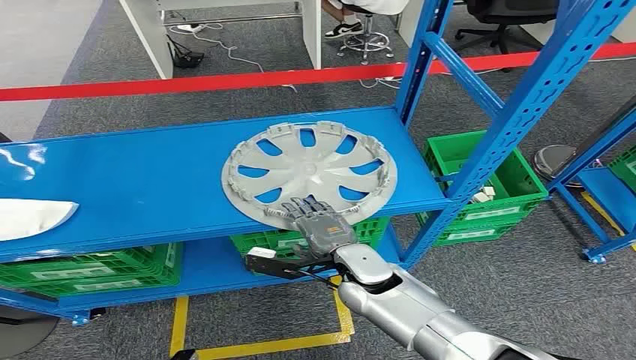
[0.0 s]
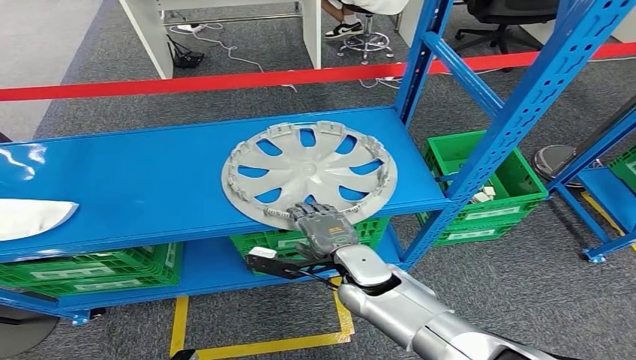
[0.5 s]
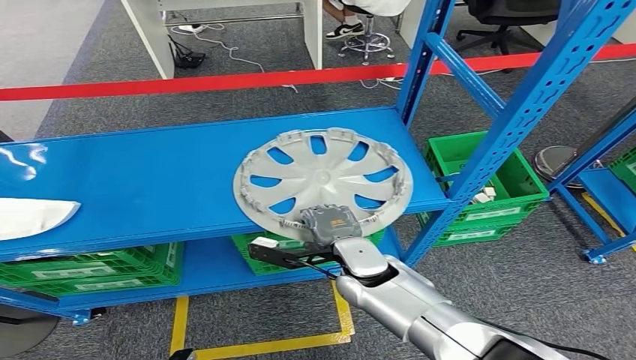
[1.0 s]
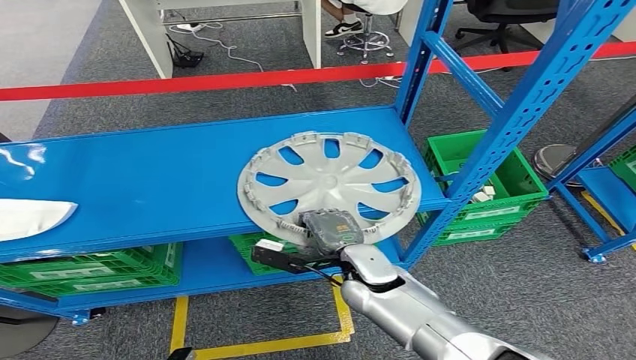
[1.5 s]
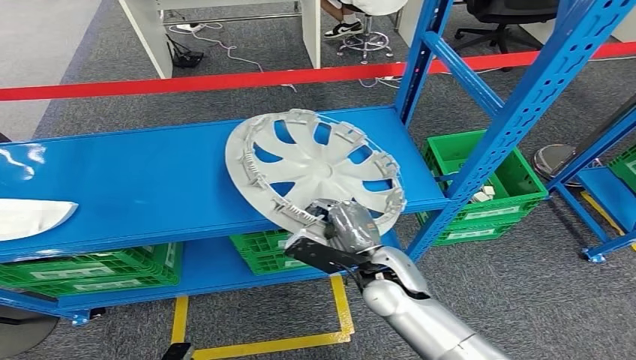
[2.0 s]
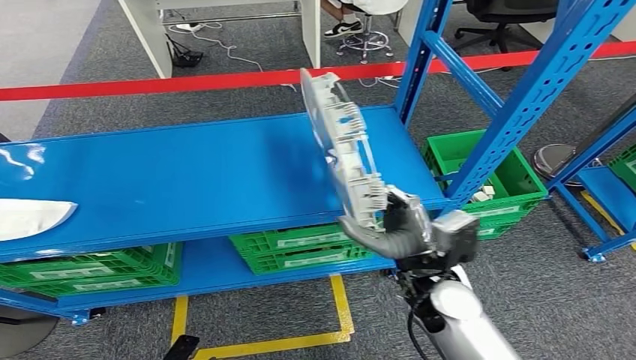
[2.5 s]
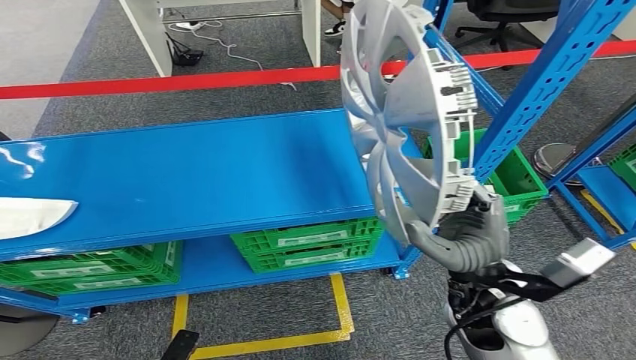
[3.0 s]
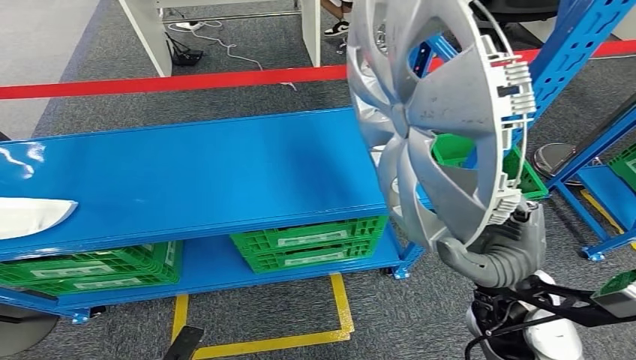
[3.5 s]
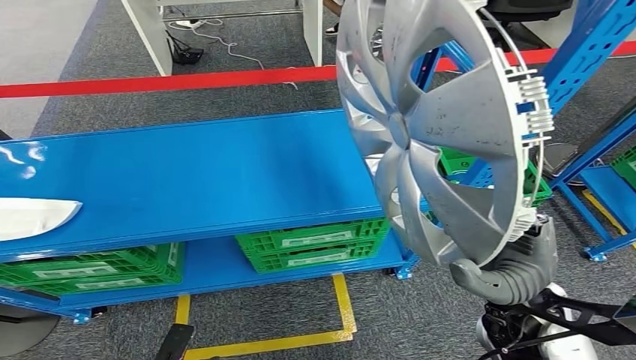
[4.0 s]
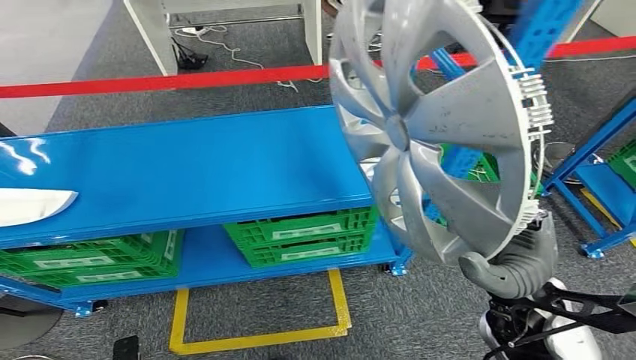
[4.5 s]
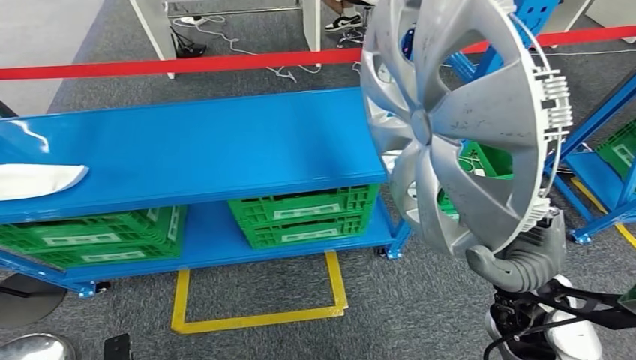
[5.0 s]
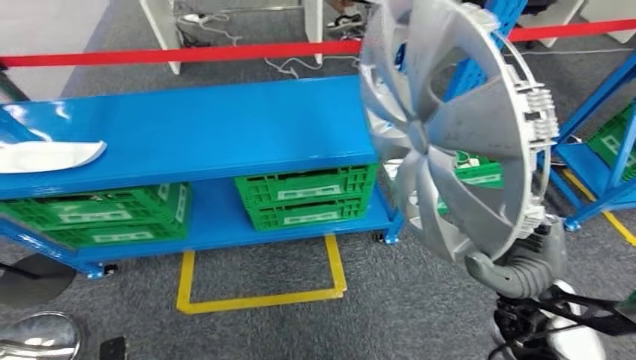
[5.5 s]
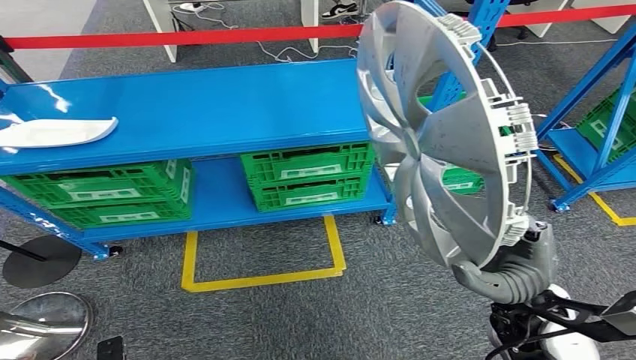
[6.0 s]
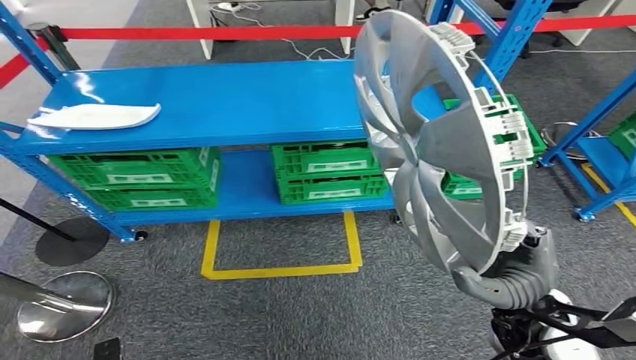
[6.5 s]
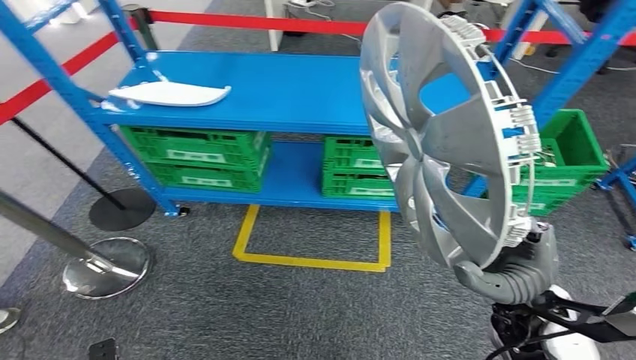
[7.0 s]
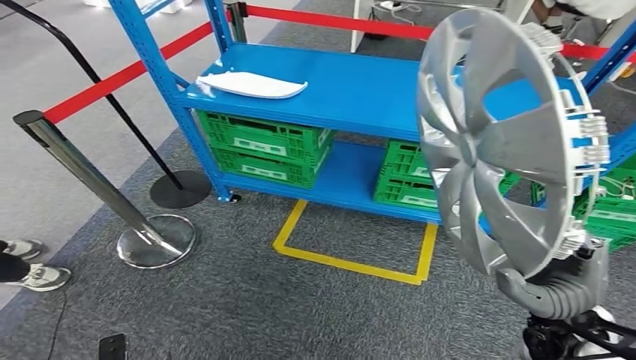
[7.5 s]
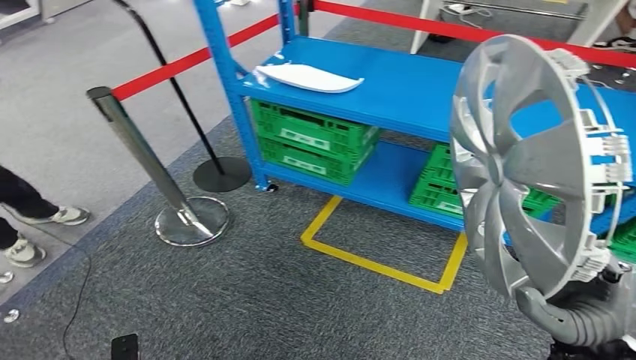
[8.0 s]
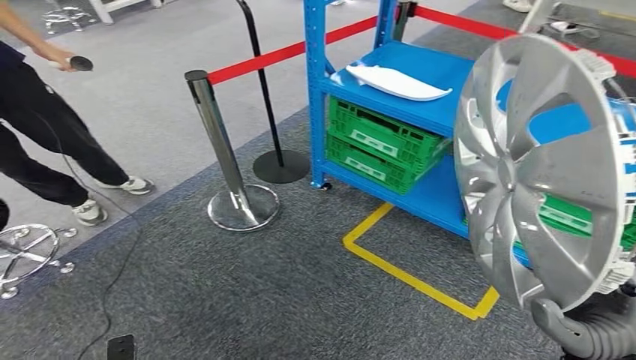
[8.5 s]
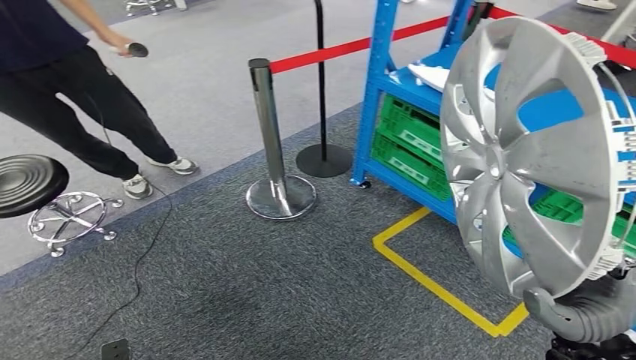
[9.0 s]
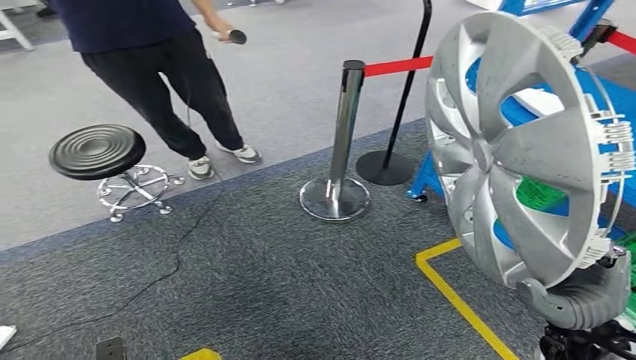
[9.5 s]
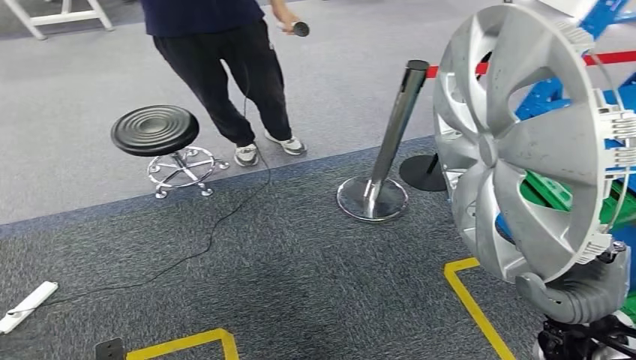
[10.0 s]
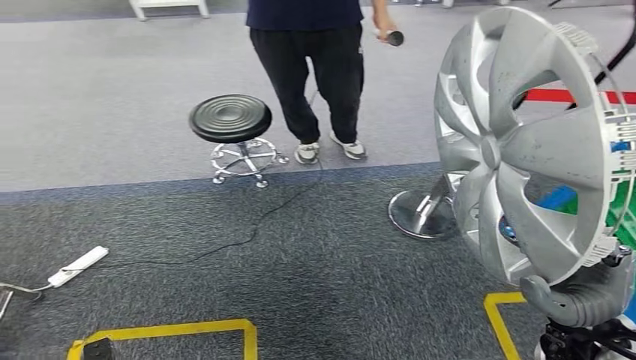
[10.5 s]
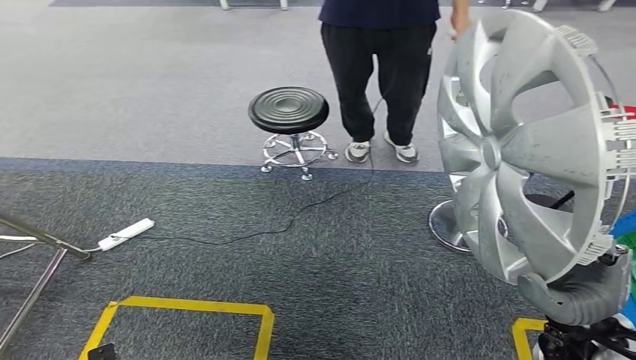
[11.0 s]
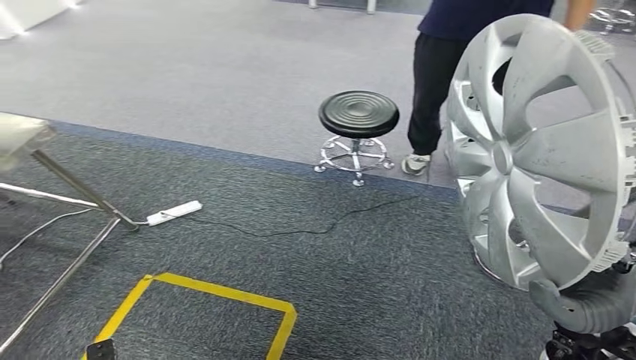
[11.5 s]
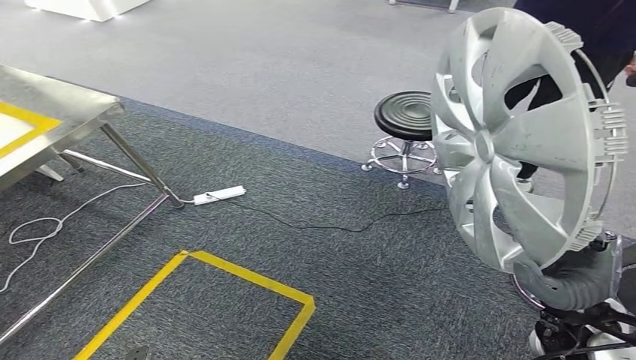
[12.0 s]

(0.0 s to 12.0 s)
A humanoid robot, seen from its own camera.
Step, 0.0 s - 5.0 s: Pick up the small parts from the shelf.

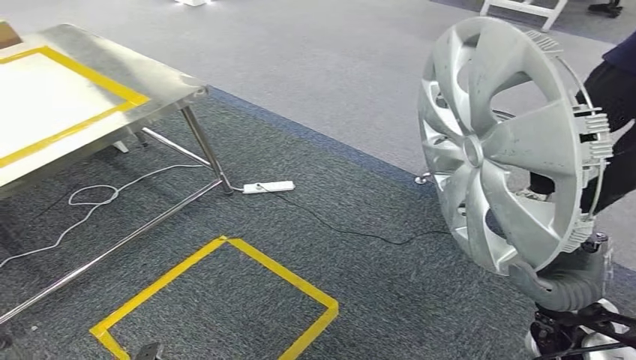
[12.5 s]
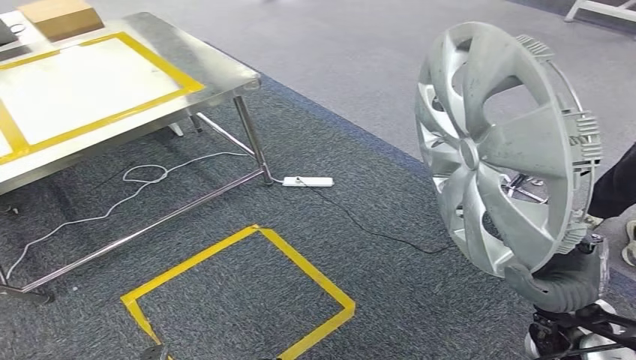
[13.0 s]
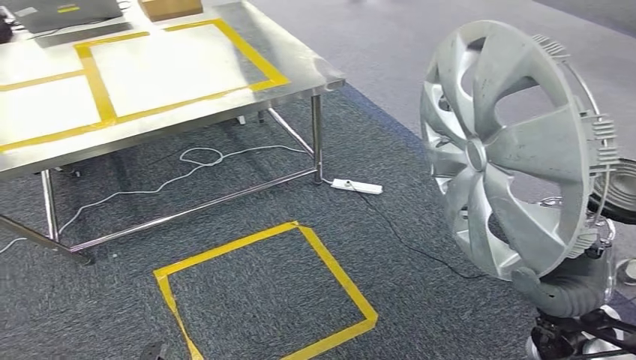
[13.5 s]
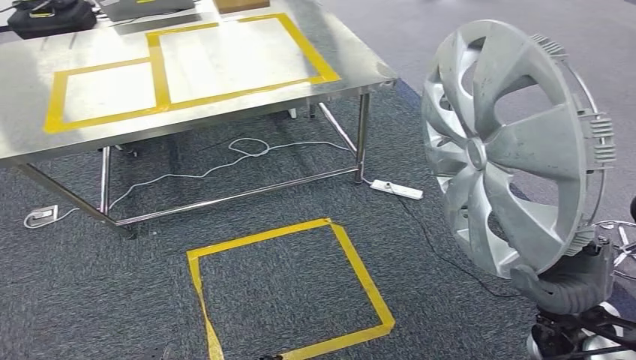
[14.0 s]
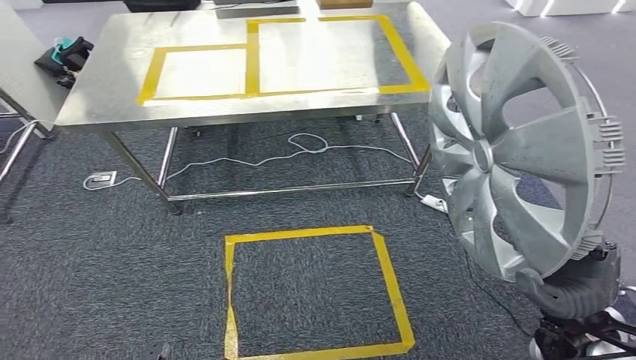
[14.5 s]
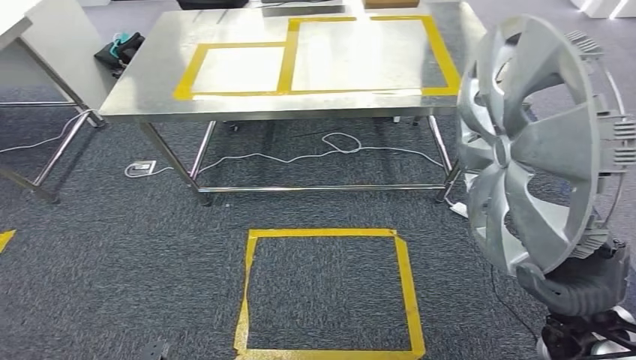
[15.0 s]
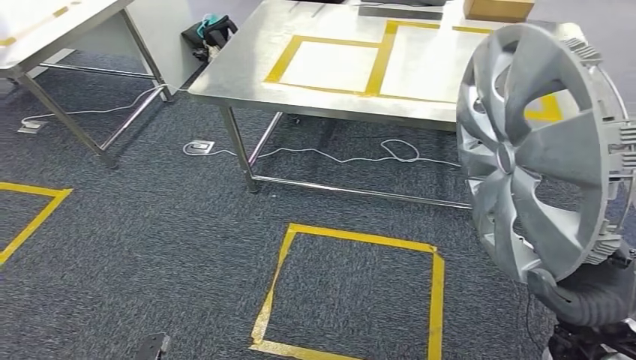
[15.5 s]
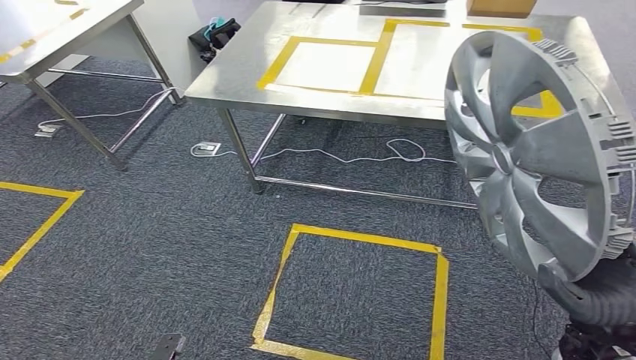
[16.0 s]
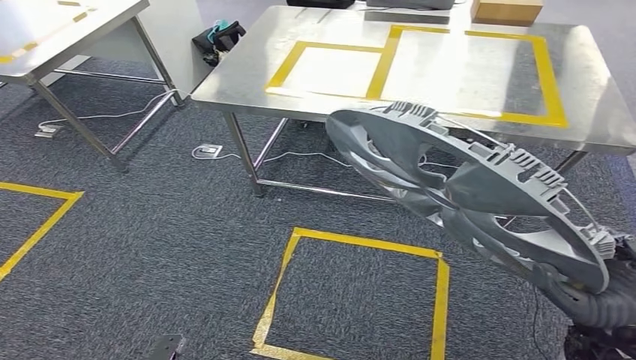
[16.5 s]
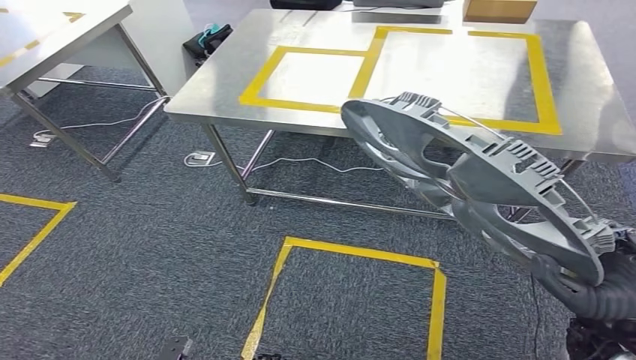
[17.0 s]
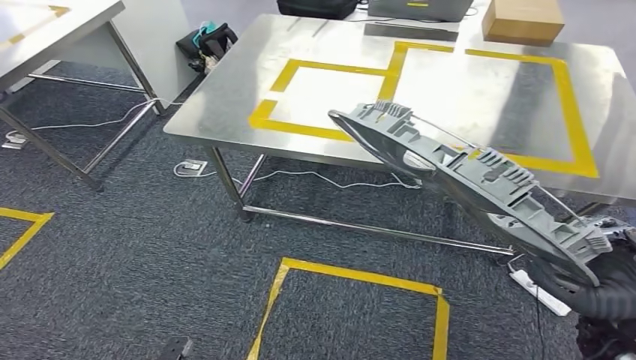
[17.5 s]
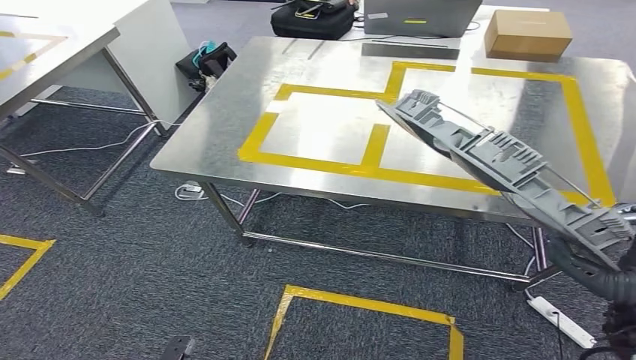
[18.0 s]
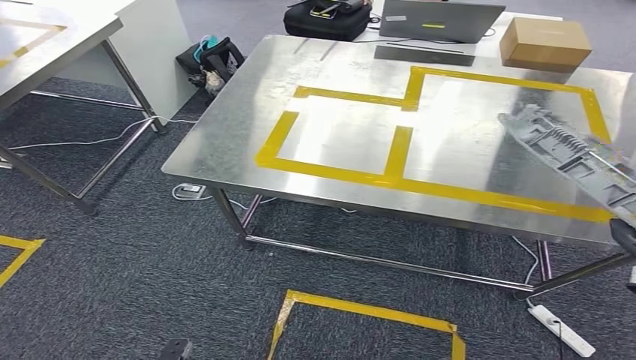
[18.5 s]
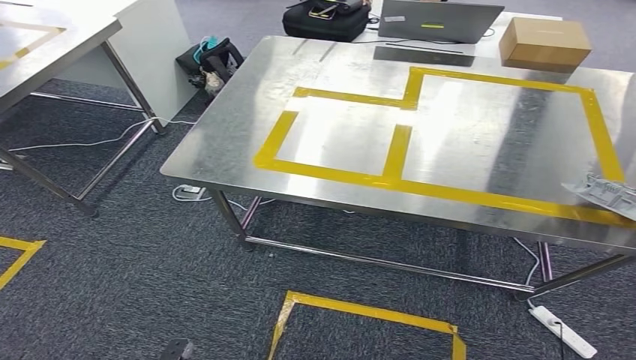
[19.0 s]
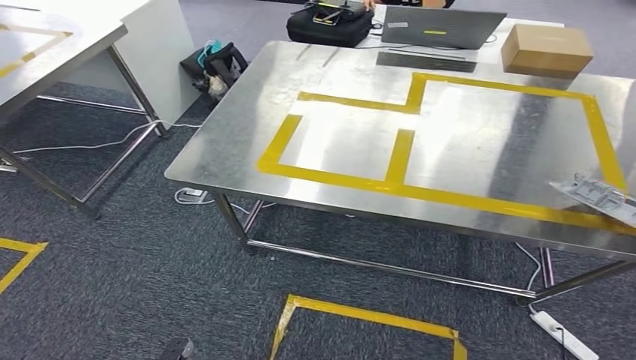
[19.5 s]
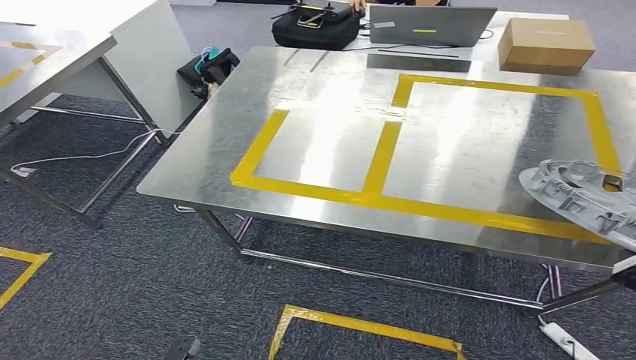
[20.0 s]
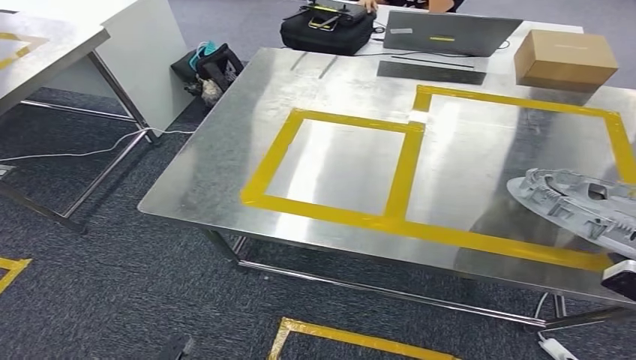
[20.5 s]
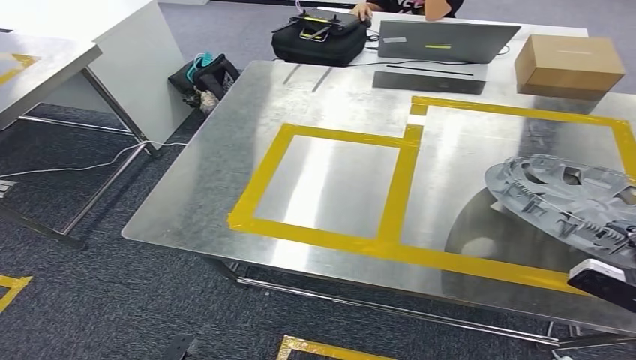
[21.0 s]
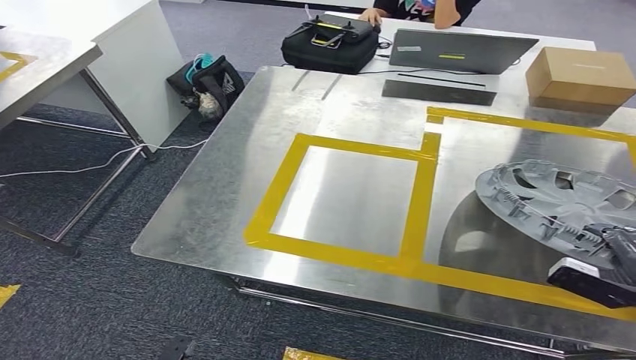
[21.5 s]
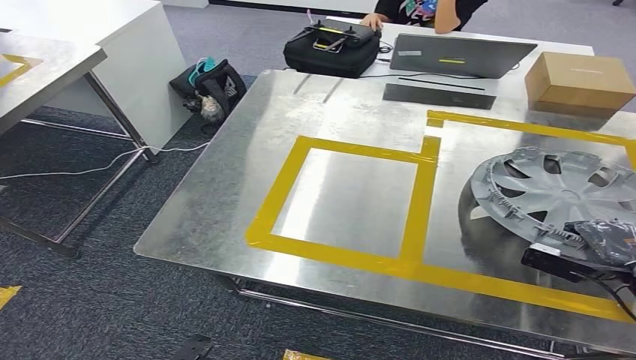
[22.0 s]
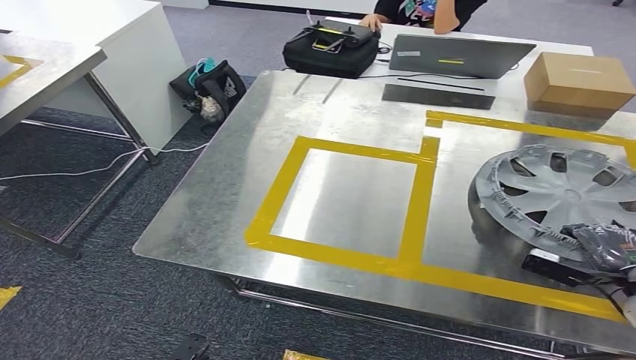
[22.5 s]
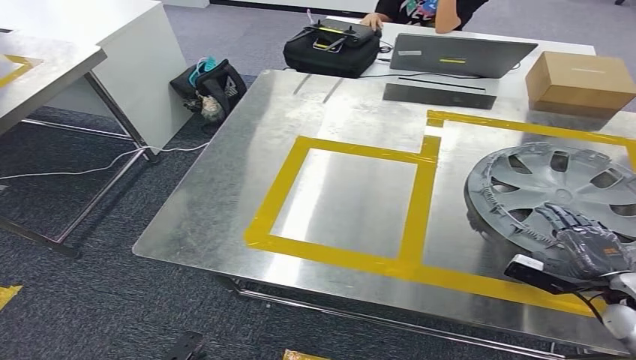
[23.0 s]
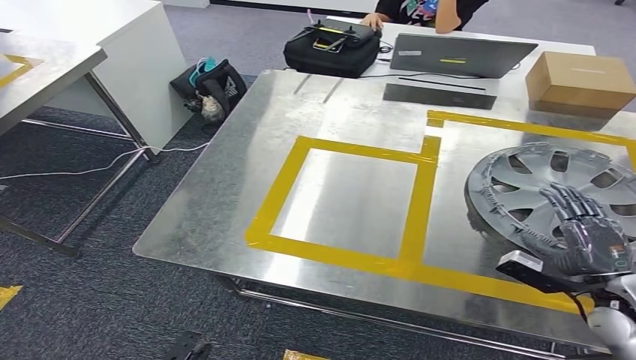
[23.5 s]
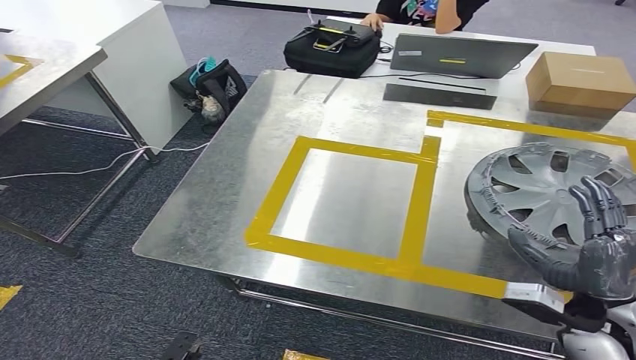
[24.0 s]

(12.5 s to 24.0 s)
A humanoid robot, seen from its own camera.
Step, 12.5 s - 16.5 s: Move the small parts to the workbench.
22.0 s - 24.0 s: The right hand heads to the left and backward, covering approximately 15 cm.
